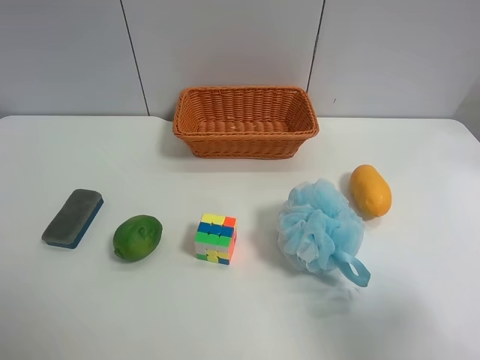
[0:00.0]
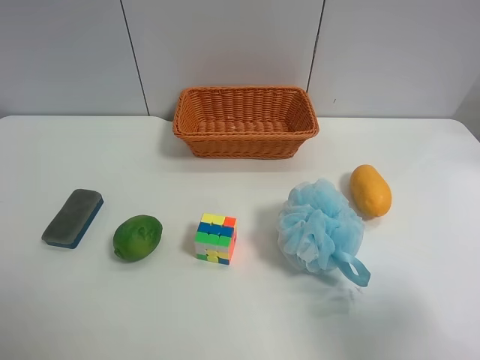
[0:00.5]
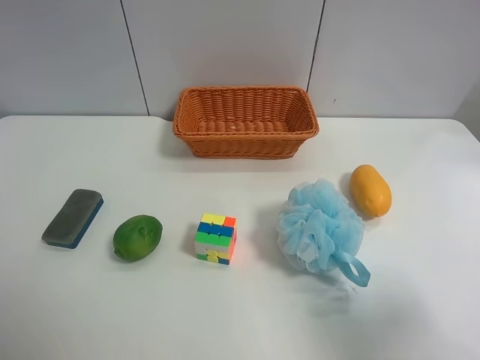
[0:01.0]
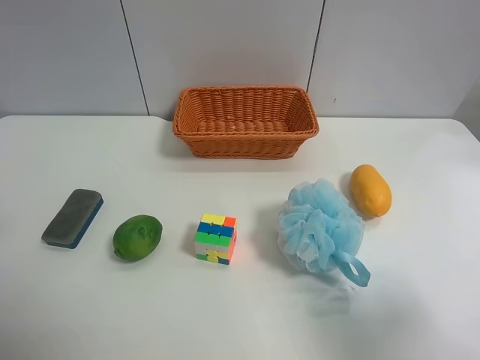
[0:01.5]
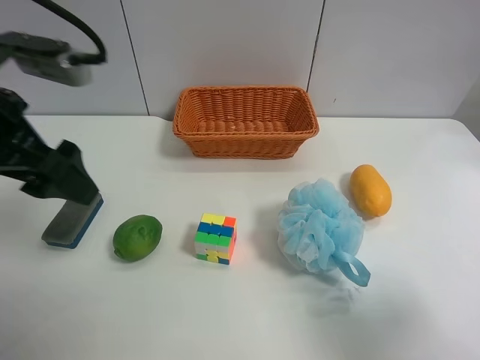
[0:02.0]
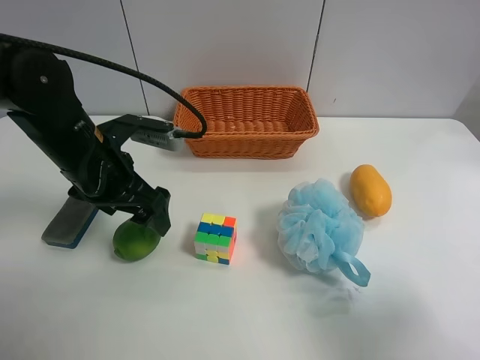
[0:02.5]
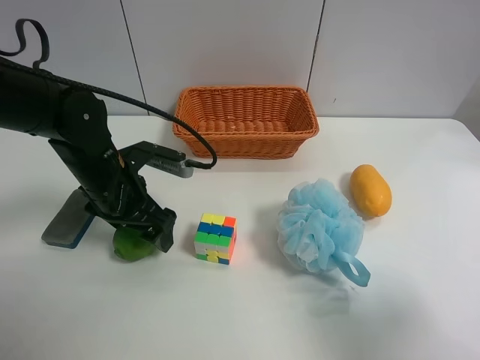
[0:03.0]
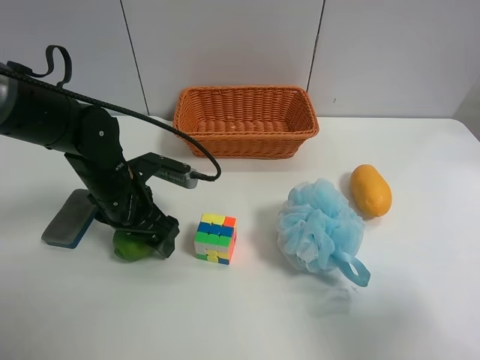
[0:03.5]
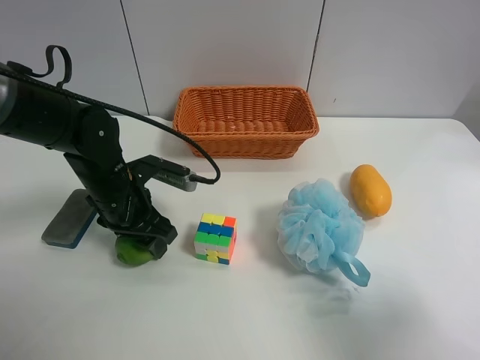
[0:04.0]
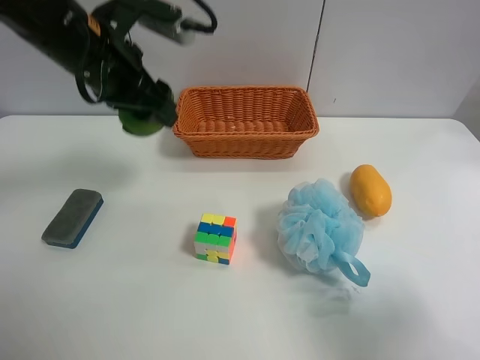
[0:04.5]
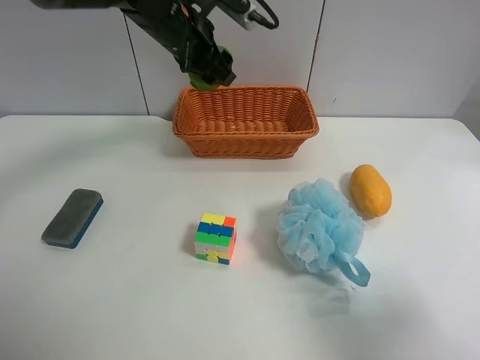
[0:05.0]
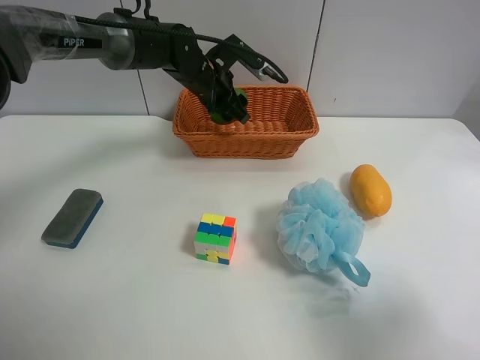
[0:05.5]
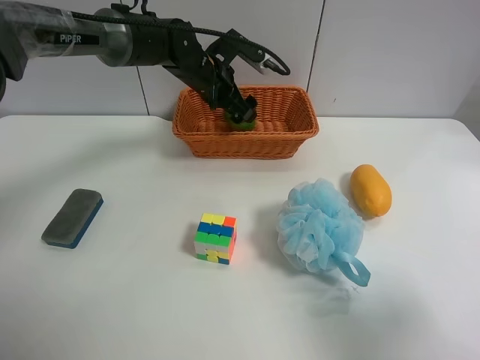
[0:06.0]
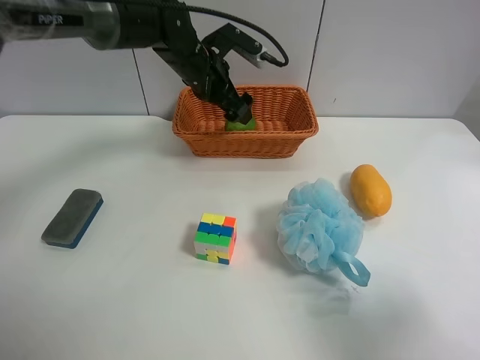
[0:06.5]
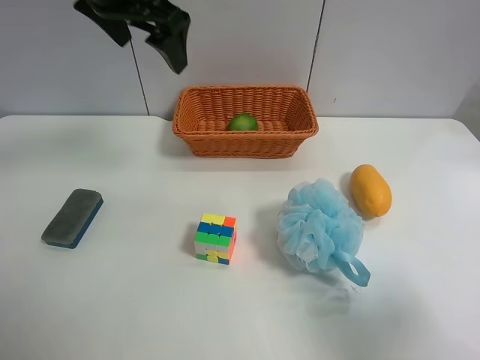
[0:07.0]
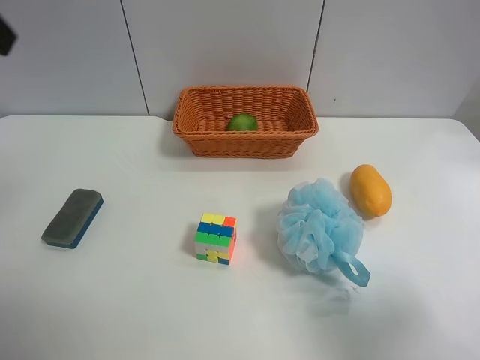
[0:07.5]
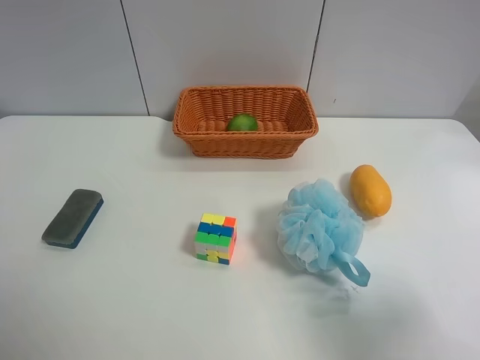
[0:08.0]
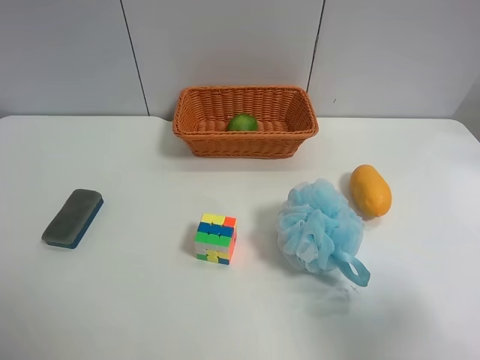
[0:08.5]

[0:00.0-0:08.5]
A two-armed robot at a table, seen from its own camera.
Task of the whole recording: use the left gripper to grab items from the table and place them in the basket.
Step, 0:00.0 to 0:03.5: Grasp the apple rubber puff with the left gripper.
Step, 0:04.0 to 0:06.0: Place the apple rubber puff into the basket with the left gripper.
0:00.0 to 0:02.0: The left gripper shifts roughly 25 cm forward and to the right.
0:02.0 to 0:04.0: The left gripper heads downward and forward, covering roughly 20 cm, and closes up.
0:04.0 to 0:06.5: The left gripper is displaced forward, upward and to the right by about 20 cm, and opens.
0:06.5 to 0:08.5: The left gripper heads backward and to the left, covering some 50 cm.

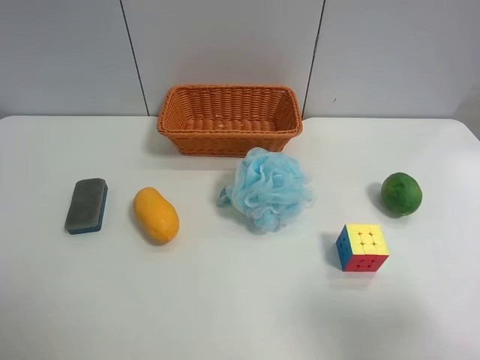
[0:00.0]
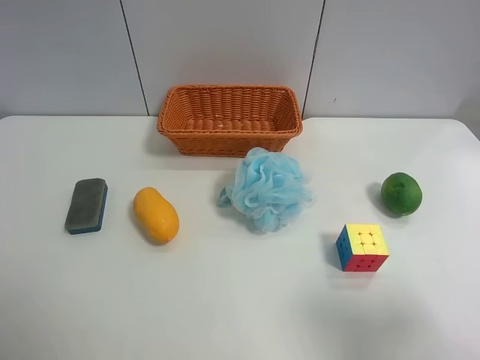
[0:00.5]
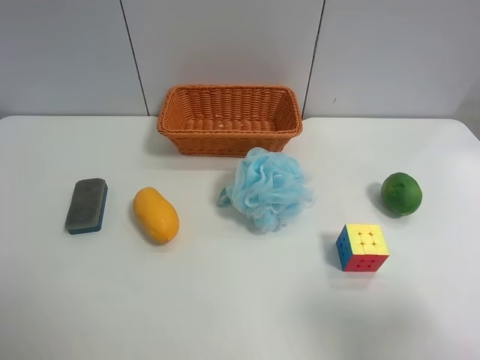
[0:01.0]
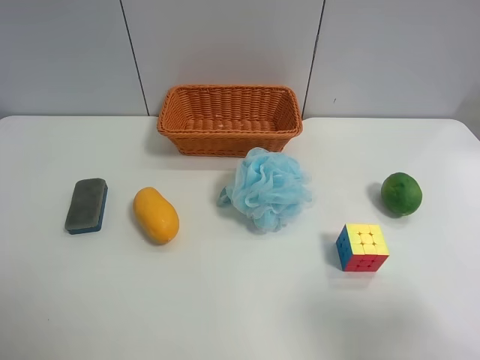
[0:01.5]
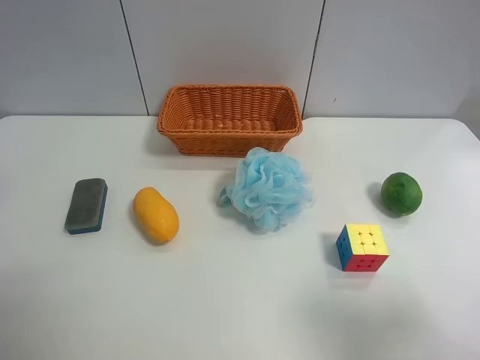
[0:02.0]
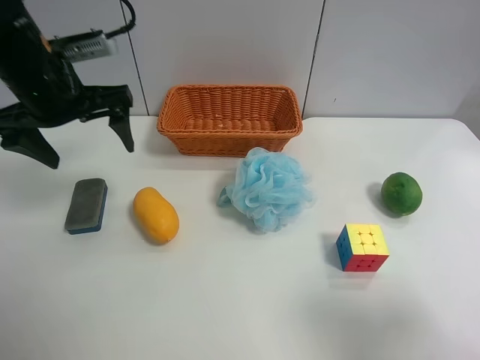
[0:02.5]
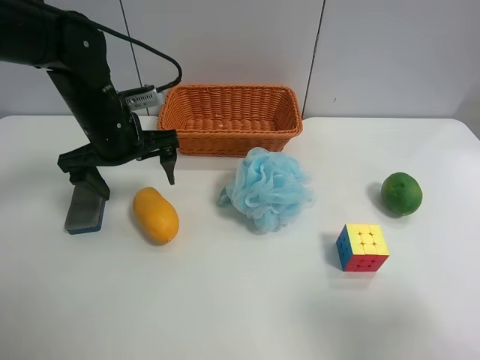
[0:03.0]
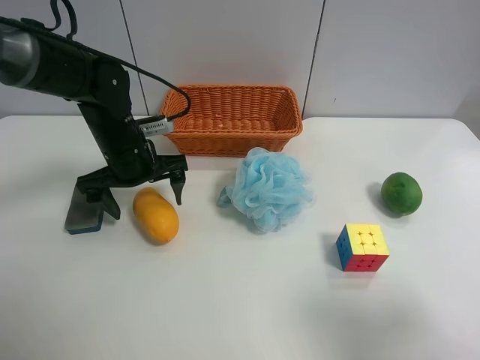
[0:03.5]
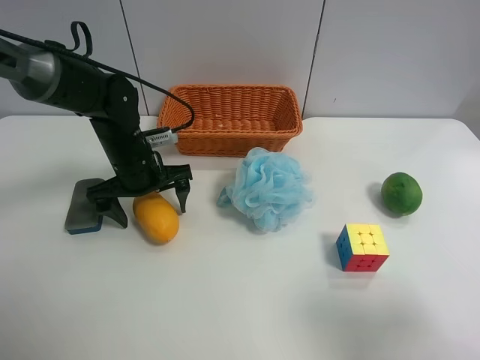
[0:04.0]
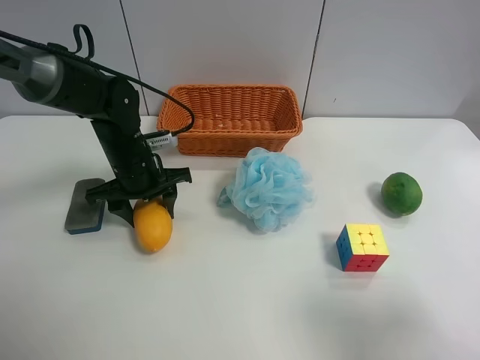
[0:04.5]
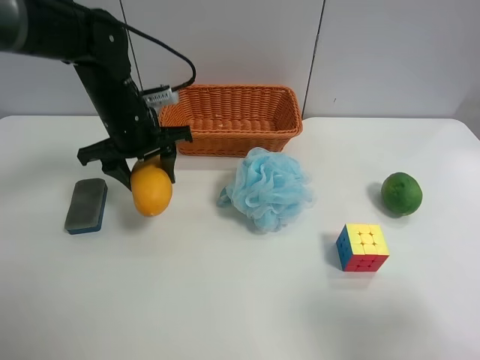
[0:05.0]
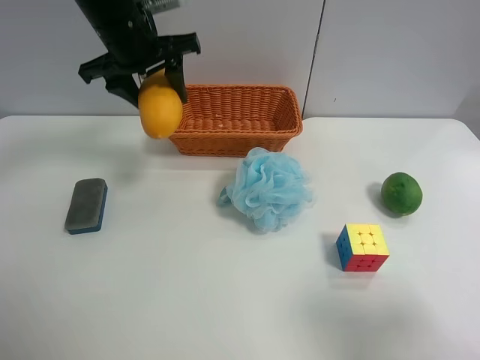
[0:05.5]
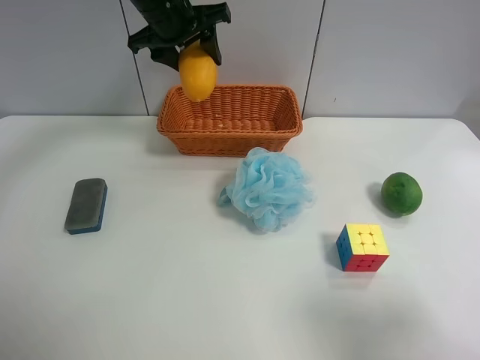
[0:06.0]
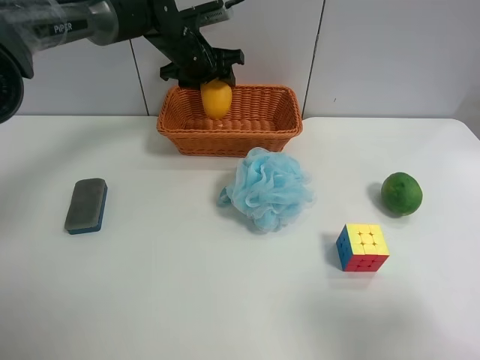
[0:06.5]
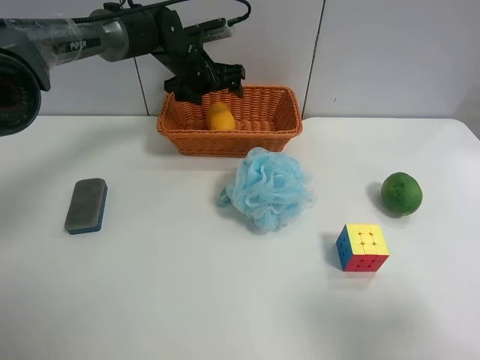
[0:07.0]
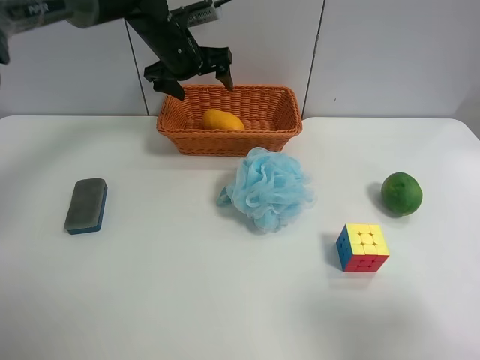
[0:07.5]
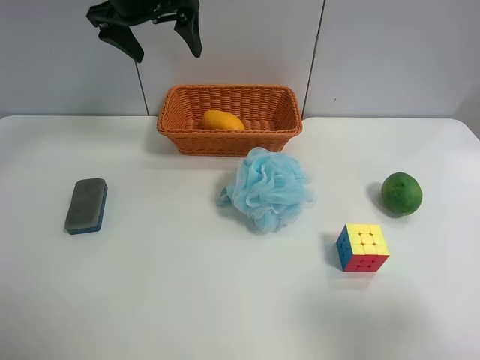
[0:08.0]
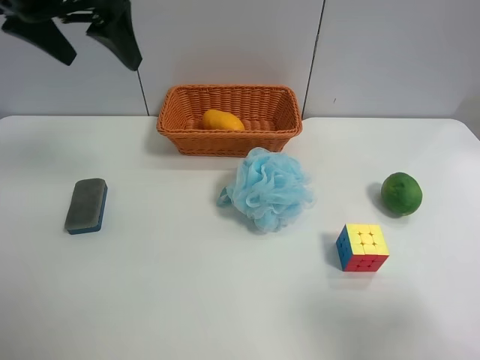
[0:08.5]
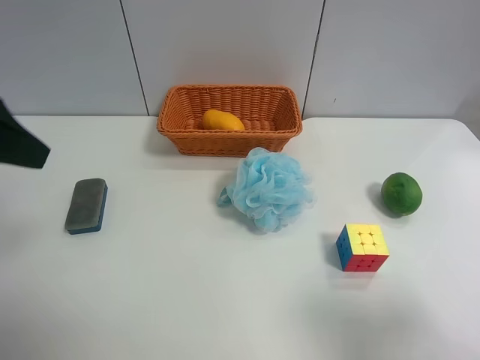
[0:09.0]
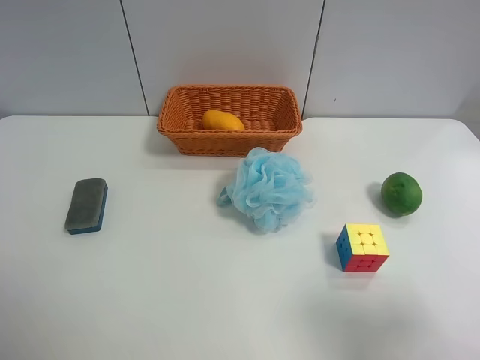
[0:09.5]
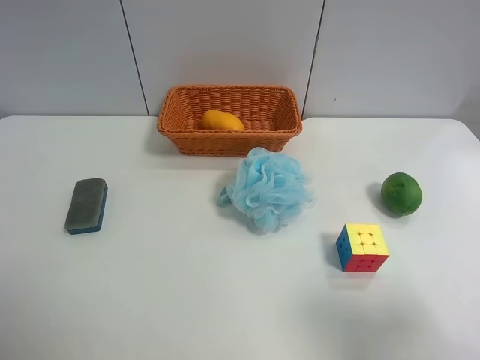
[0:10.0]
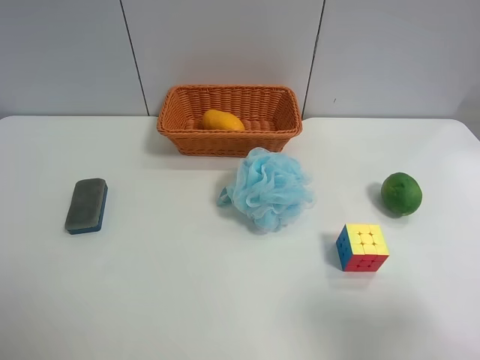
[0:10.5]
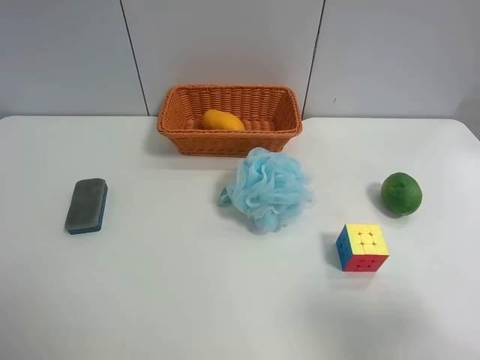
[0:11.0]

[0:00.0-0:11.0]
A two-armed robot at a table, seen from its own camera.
Task of the whole recording: use the left gripper to grab items from the table and place them in the basket.
Step, 0:00.0 to 0:04.0: Grasp the mango with the left gripper.
Step, 0:04.5 to 0:07.0: Place the mango into the basket with the left gripper.
0:02.0 to 0:03.5: The left gripper heads downward, to the right and forward, covering about 30 cm.
0:03.5 to 0:05.5: The left gripper moves upward, about 15 cm, and closes.
0:05.5 to 0:07.5: The left gripper heads forward and downward, covering some 10 cm, and opens up.
0:07.5 to 0:09.0: The left gripper shifts some 35 cm backward and to the left.
0:09.0 to 0:11.0: The left gripper goes about 15 cm backward.
